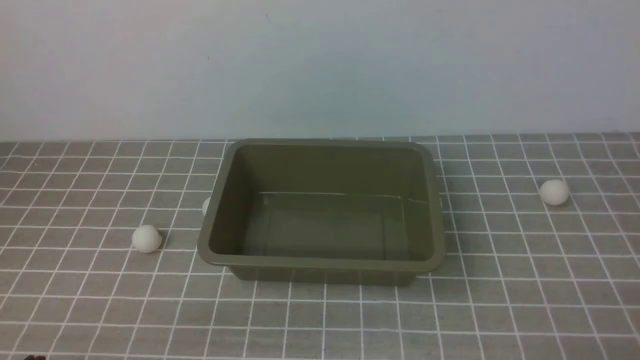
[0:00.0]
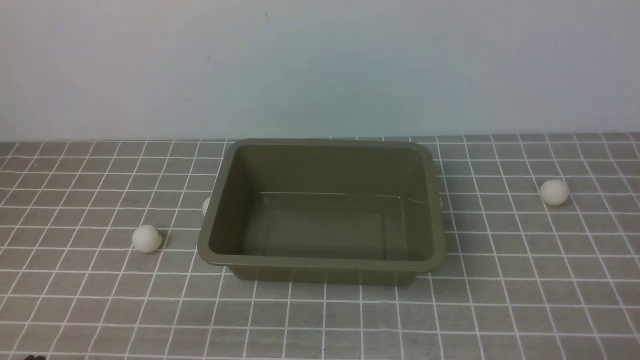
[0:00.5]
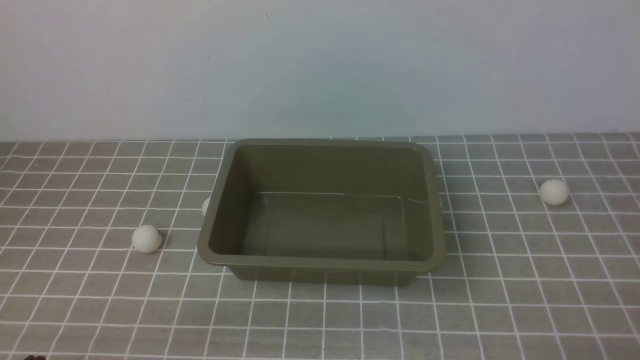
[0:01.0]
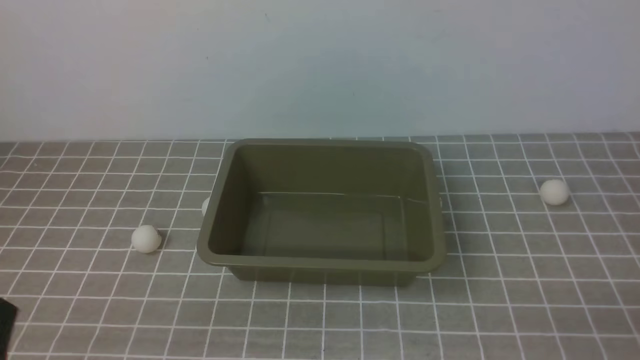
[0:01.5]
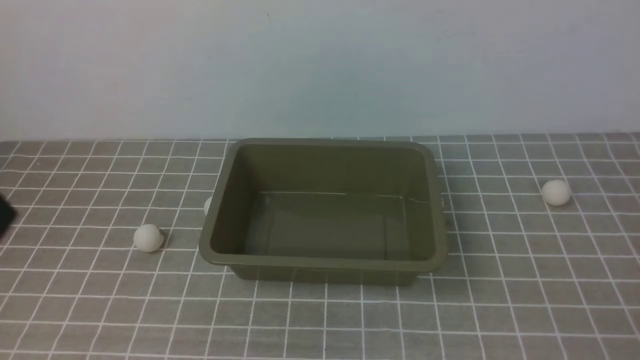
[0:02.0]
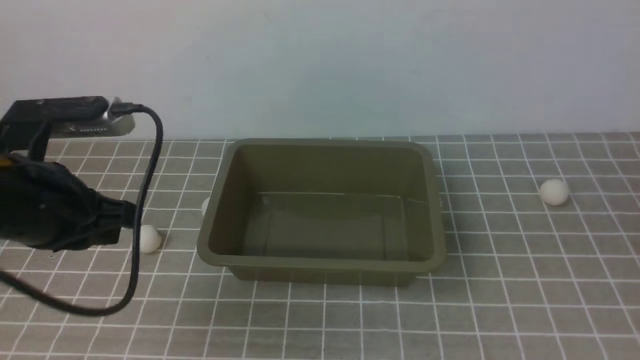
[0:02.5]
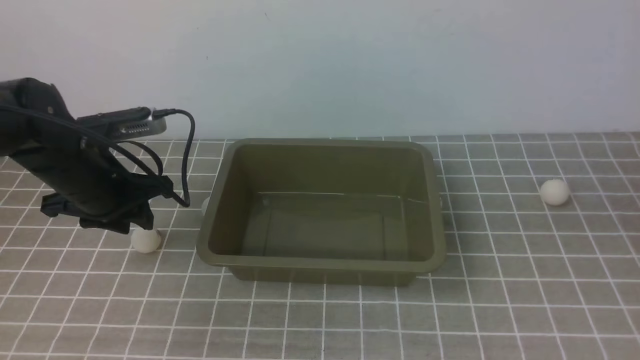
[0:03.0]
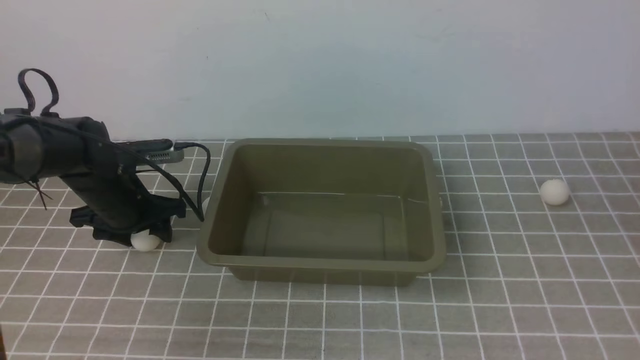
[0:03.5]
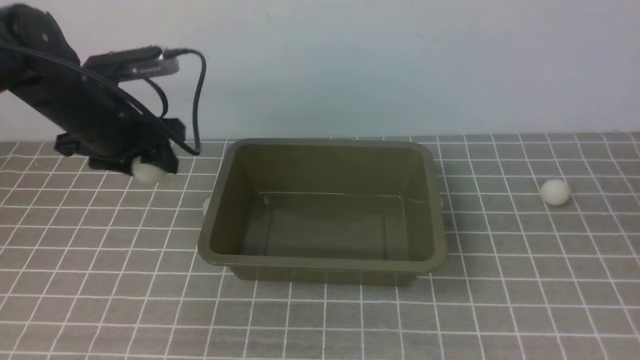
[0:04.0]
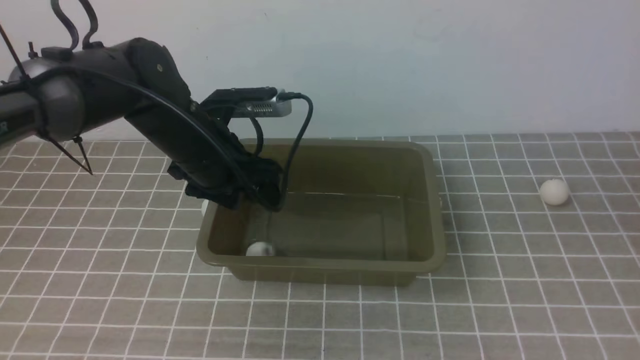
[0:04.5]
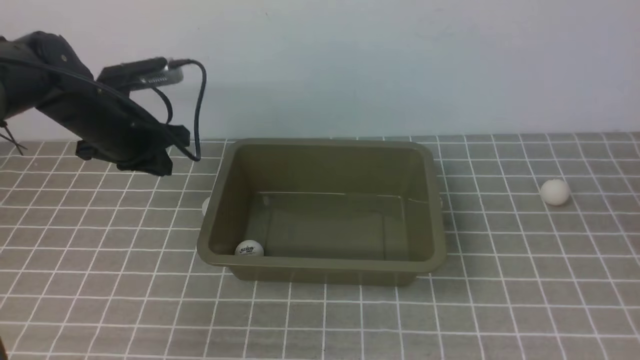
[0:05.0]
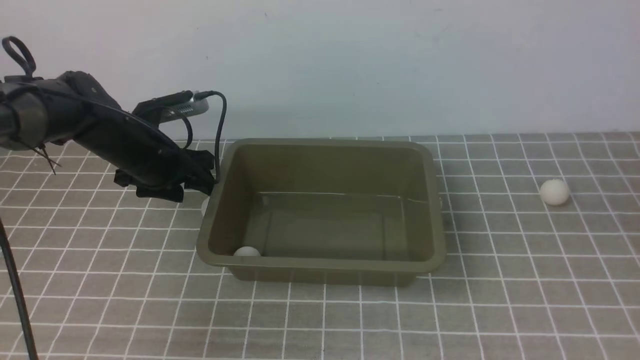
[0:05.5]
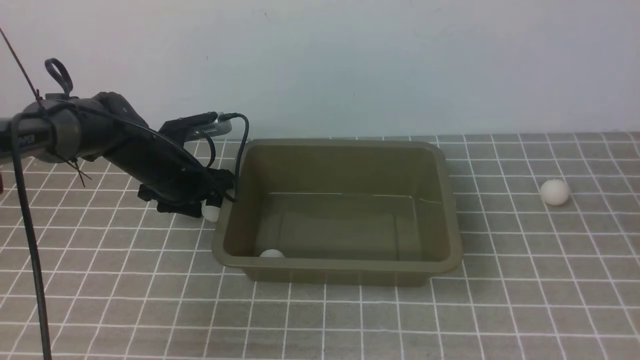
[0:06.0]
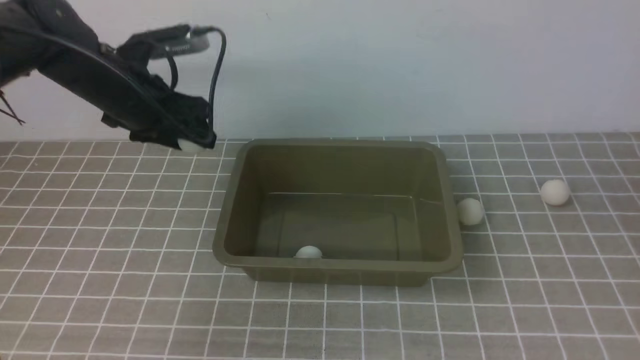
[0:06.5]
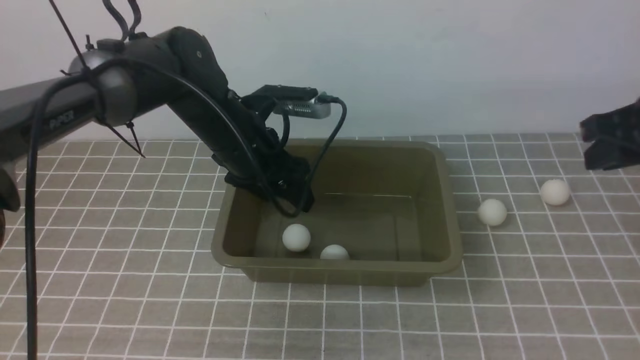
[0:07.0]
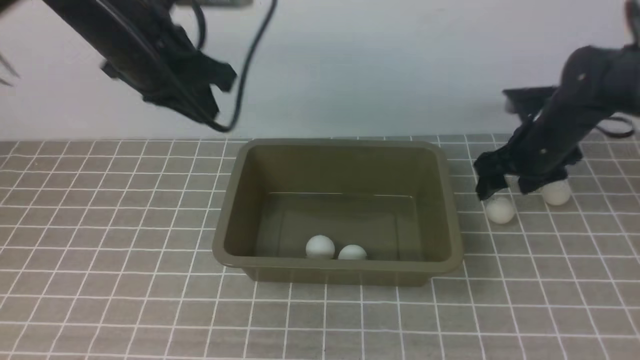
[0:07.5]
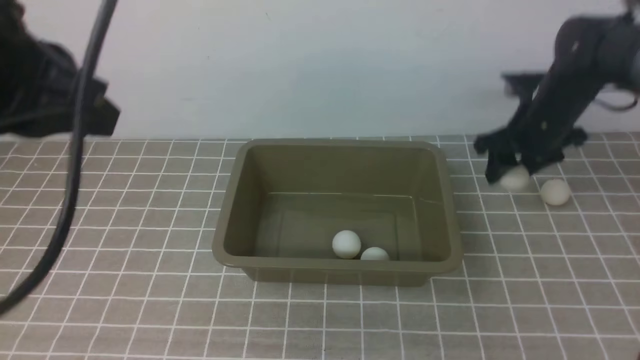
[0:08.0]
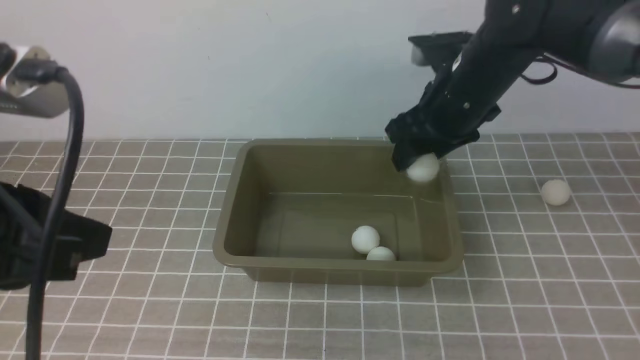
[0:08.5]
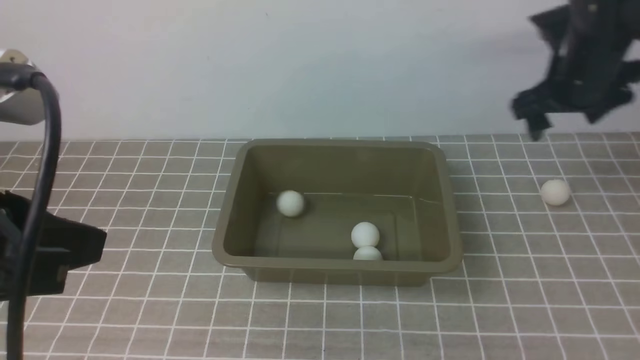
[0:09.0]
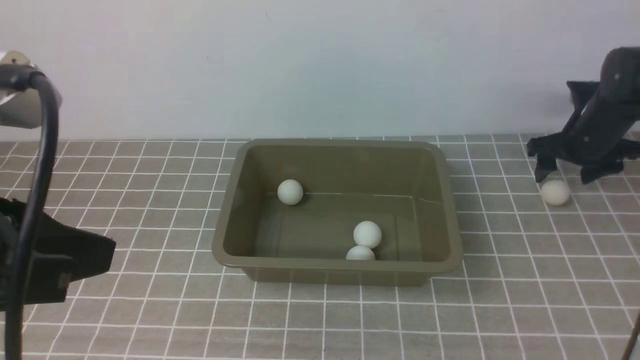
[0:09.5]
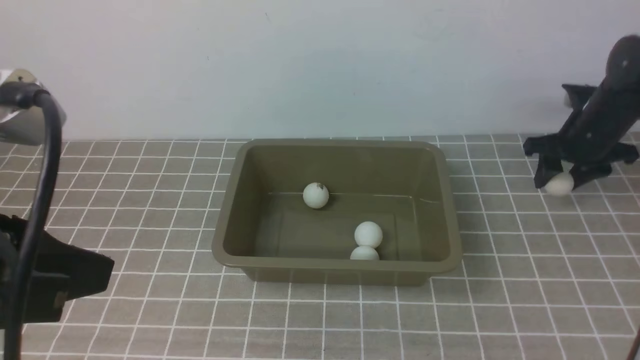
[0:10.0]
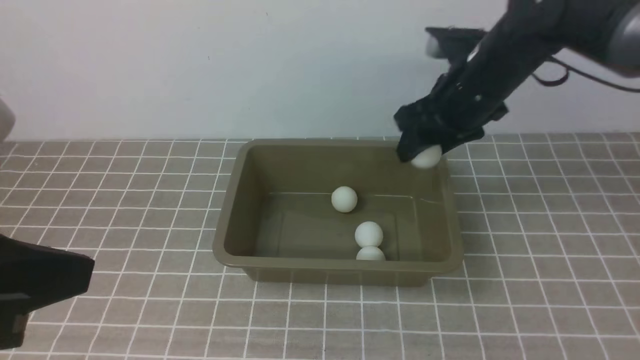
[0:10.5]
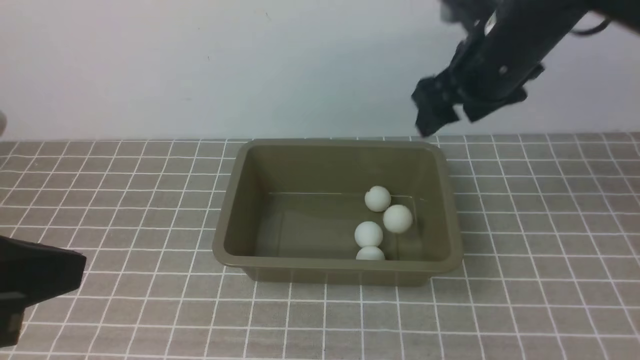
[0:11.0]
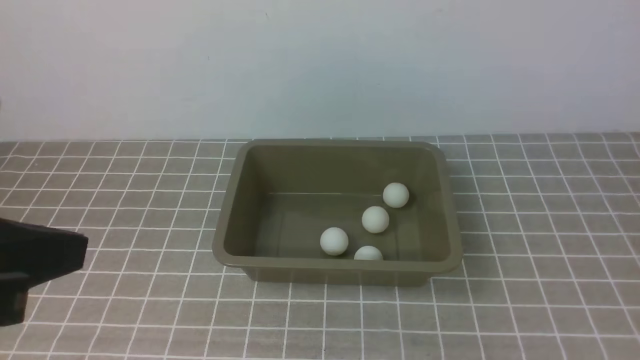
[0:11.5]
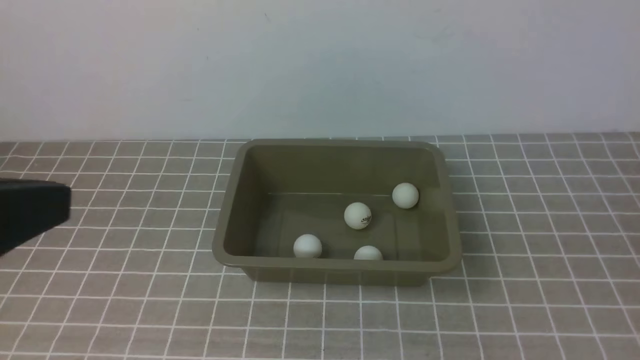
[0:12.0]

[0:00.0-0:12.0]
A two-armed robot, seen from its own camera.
Step, 0.0 to 3.5 s: use the left arm to clamp the table tennis ball closest to it.
Step, 4.0 to 4.5 s: use the left arm to put the table tennis ball into the box.
Step, 5.0 to 6.0 s: use the left arm to clamp the table tennis ball closest to it.
Step, 6.5 to 7.0 s: use the left arm to put the table tennis ball into the box.
Step, 7.5 to 8.0 s: use the right arm to clamp the table tennis ball closest to it.
Step, 9.0 to 10.0 s: use the right arm to clamp the table tennis ball closest to it.
Step, 10.5 to 11.0 s: use the right arm to put the table tennis ball into the box.
2.0 to 4.0 s: The right gripper travels upward and forward by some 15 cm, while the left gripper moves forward, approximately 30 cm, and opens up.
4.0 to 6.0 s: The left gripper shifts roughly 10 cm downward and forward, and closes, then opens again.
6.0 to 8.0 s: The left gripper travels upward and backward by some 40 cm, and closes its fingers; the right gripper shifts approximately 30 cm forward, and opens its fingers.
8.0 to 10.0 s: The left gripper moves backward, about 10 cm, while the right gripper travels to the right by about 10 cm, and opens, then closes once more.
10.0 to 12.0 s: The right gripper heads backward, covering approximately 50 cm, and closes its fingers. The left gripper changes place by about 5 cm.

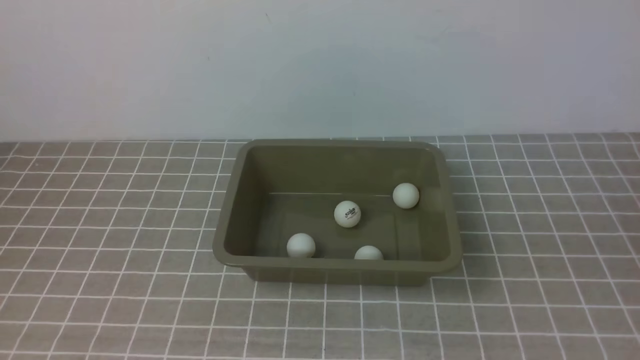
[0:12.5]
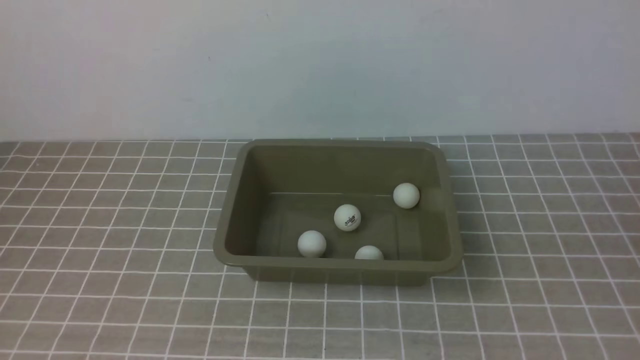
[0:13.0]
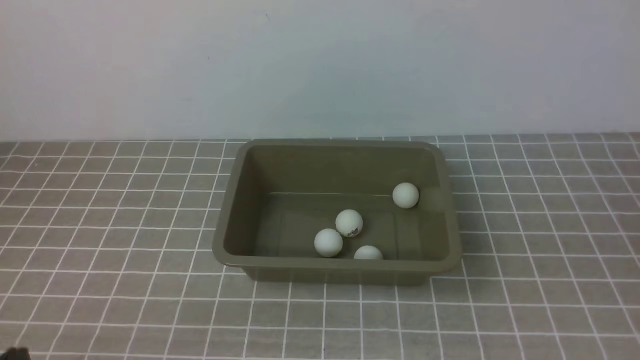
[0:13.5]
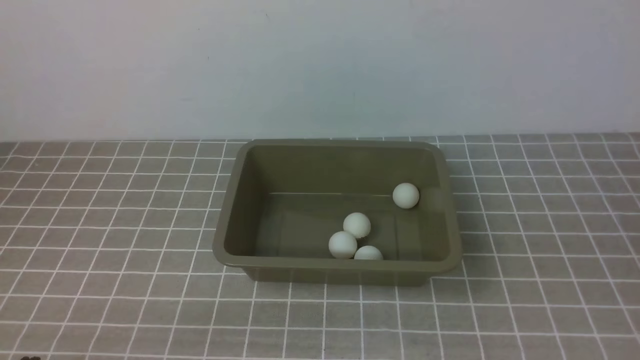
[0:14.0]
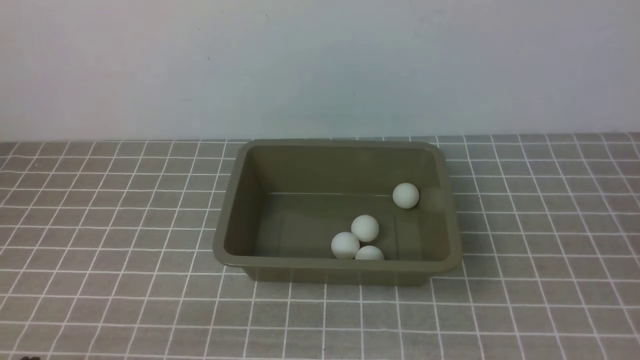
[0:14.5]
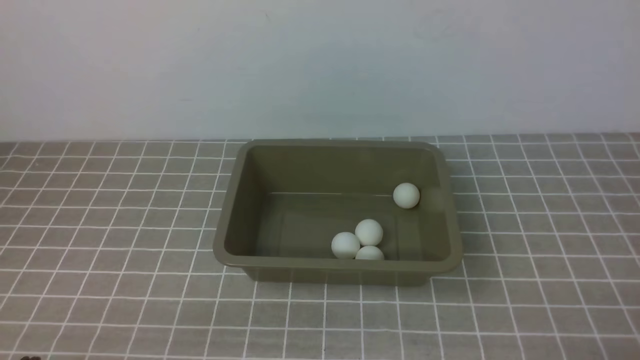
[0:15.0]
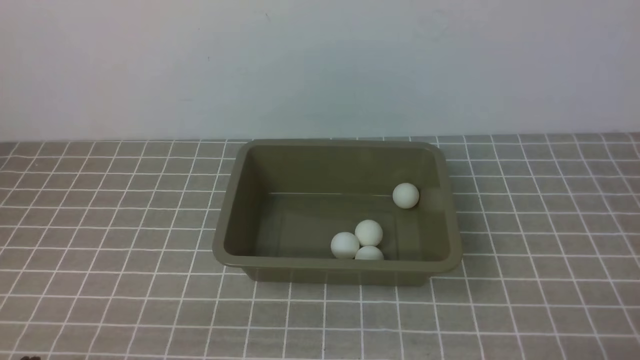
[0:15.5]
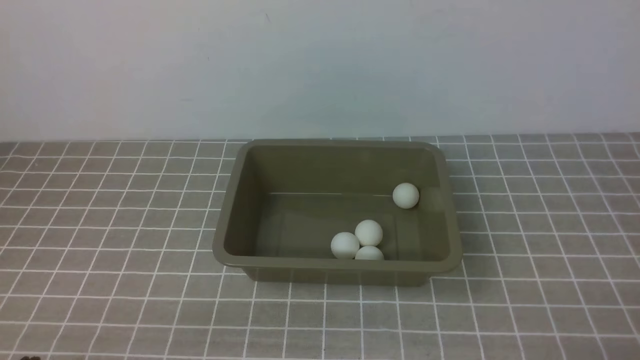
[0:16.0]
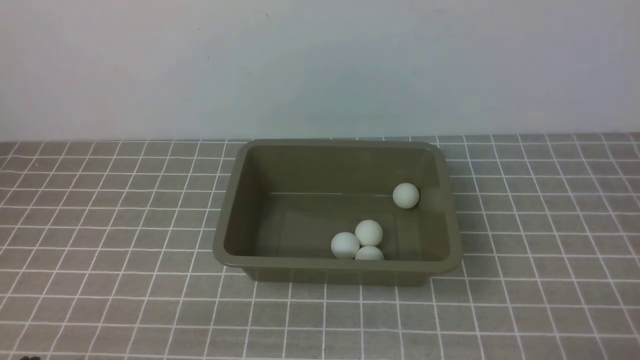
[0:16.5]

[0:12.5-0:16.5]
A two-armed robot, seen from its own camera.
12.5 to 14.5 s: The left gripper is displaced downward by about 20 cm.

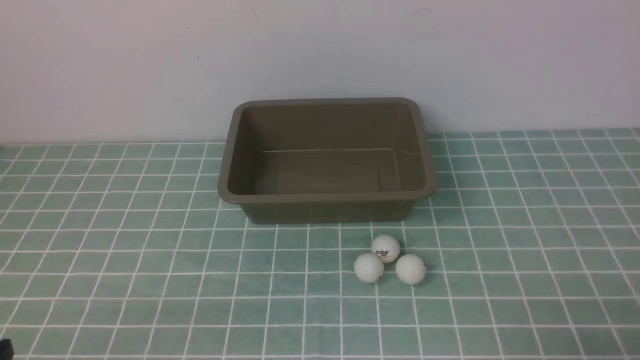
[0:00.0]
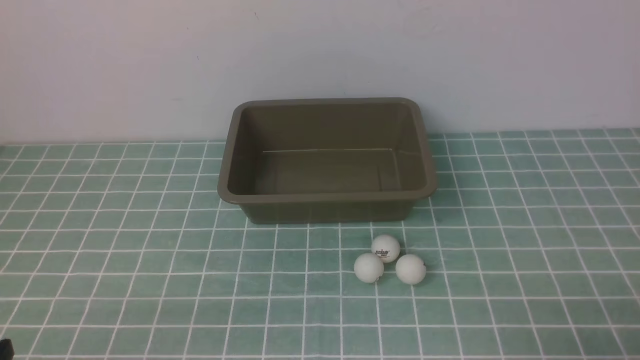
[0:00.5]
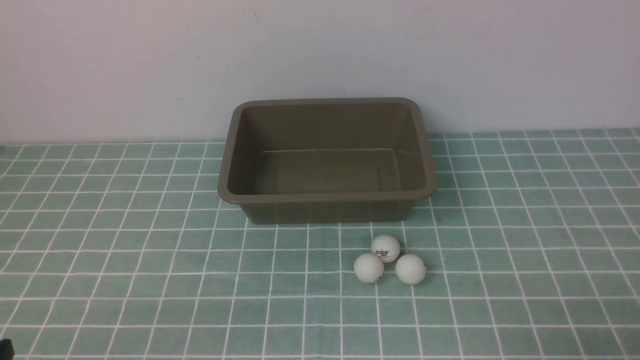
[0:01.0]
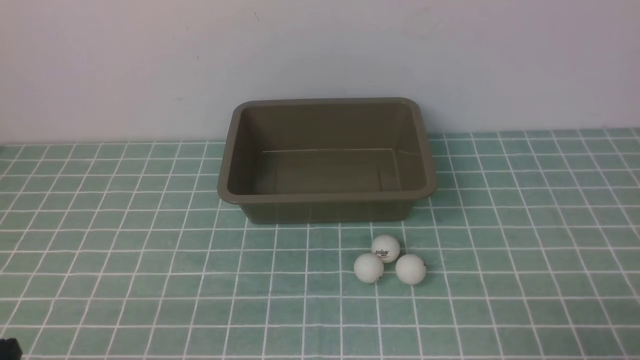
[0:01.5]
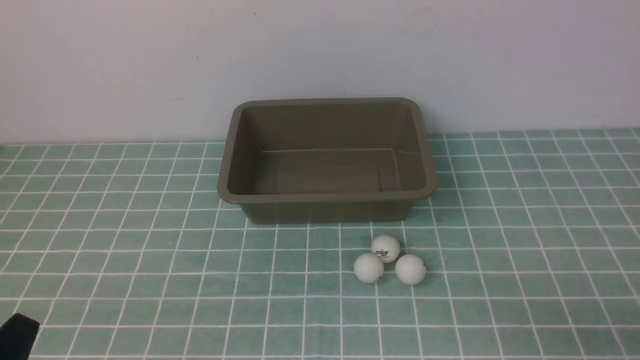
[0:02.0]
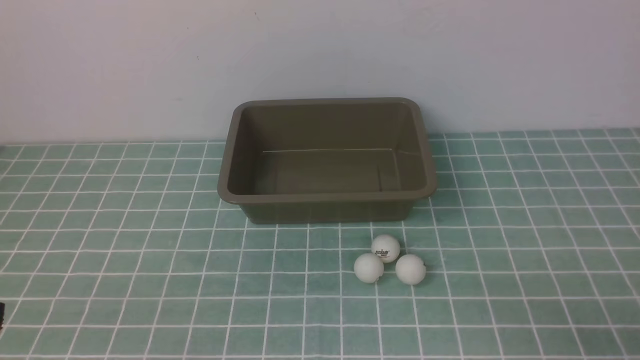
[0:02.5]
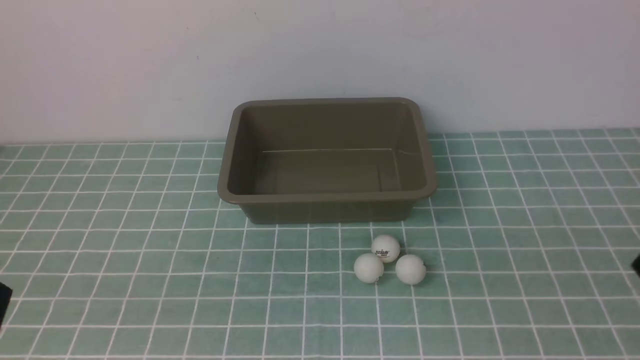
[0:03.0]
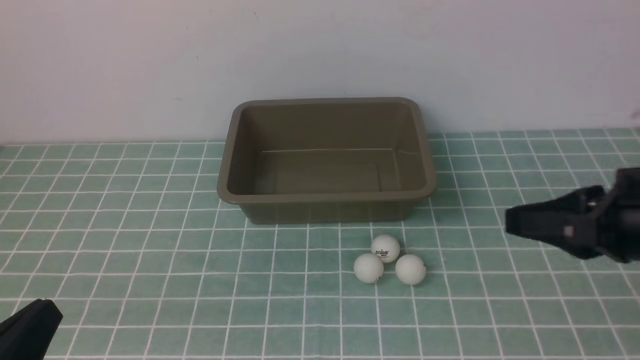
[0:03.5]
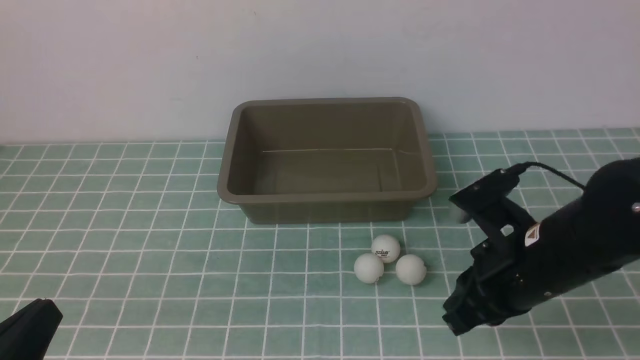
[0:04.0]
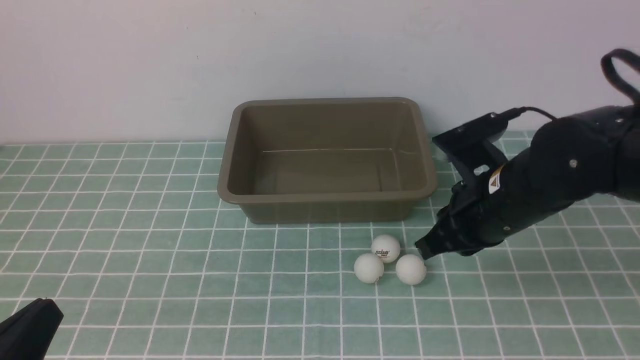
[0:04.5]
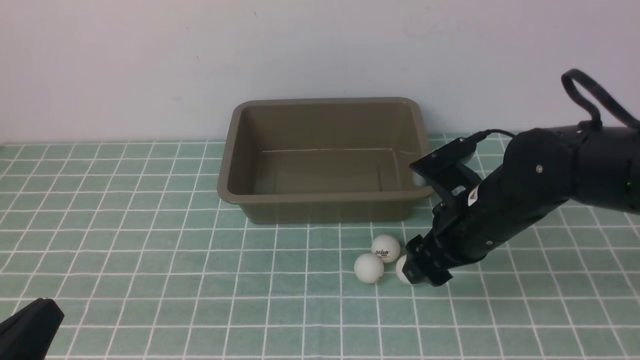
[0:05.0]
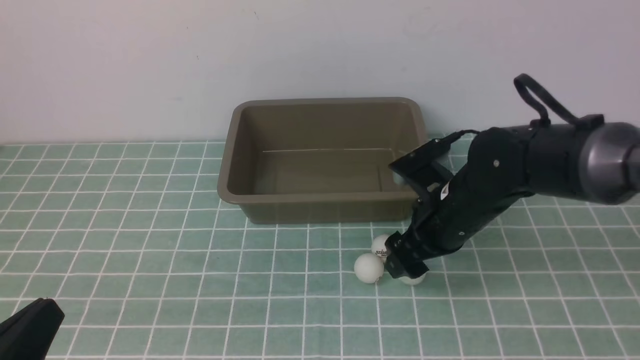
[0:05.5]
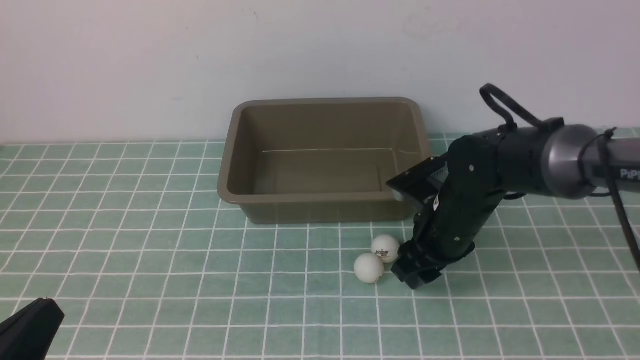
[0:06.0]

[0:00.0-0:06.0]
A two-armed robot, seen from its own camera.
2.0 to 4.0 s: The left gripper ends up approximately 5 cm from where it was. Meanwhile the right gripper moves forward and to the left, about 20 cm.
4.0 to 6.0 s: The right gripper is displaced forward and downward by some 15 cm, and opens up.
